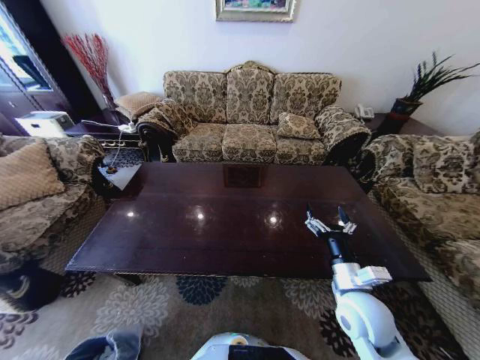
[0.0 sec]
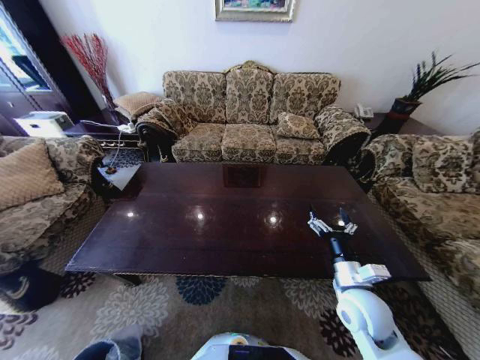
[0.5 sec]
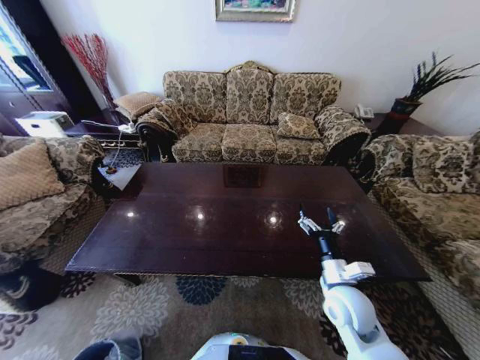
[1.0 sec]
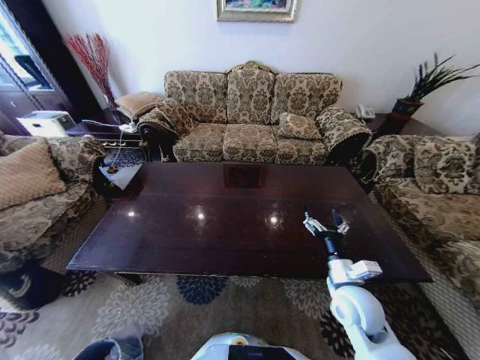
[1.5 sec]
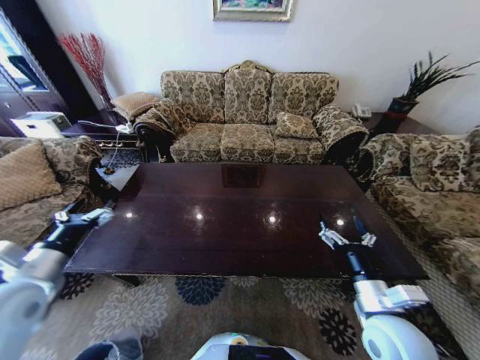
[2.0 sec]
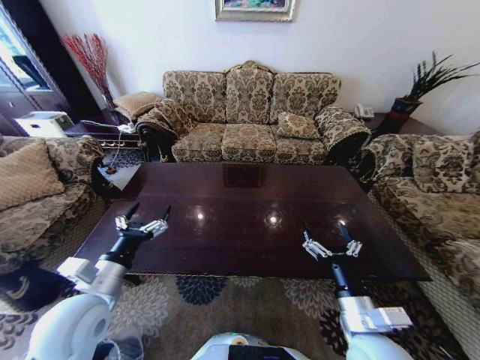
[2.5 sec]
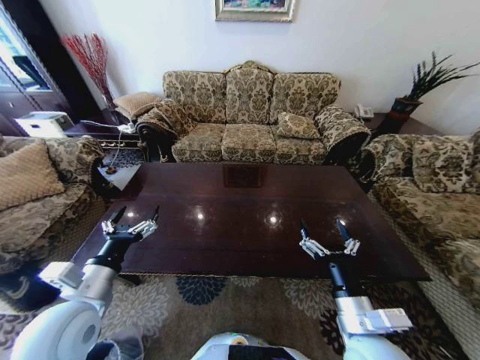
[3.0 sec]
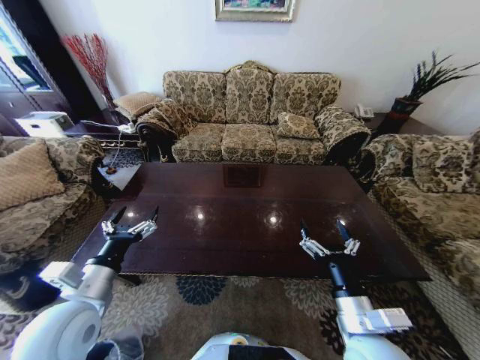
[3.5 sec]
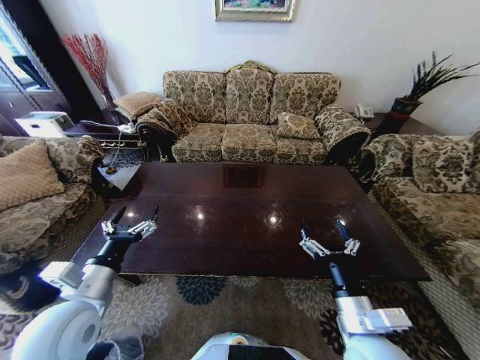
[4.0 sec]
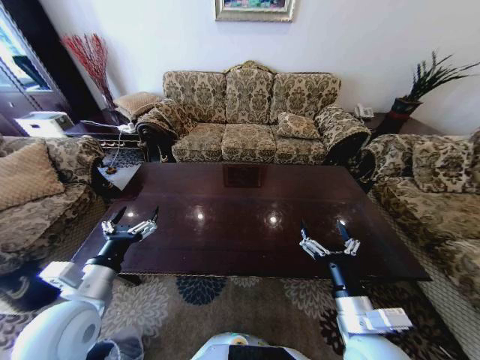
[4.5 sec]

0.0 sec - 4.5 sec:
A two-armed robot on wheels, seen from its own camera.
Task of the whole recording: Move to the front of the table and place the trash on the table into the trash bin.
0.0 sec - 2.0 sec: The left gripper goes about 50 cm upward and forward, and opens up. Meanwhile the right gripper ends up some 5 cm from where it was.
2.0 sec - 4.5 sec: The right gripper heads to the left, covering approximately 5 cm. The left gripper goes approximately 10 cm to the right.
